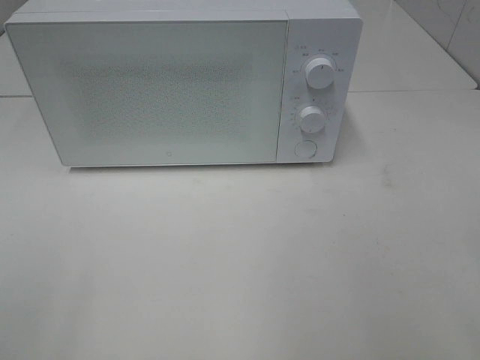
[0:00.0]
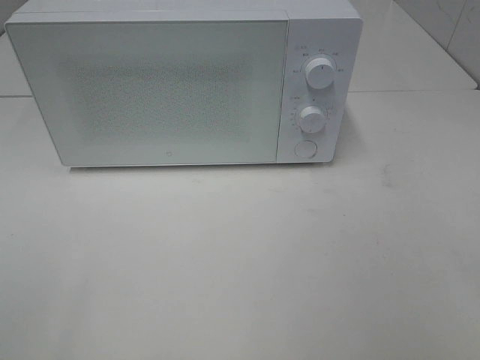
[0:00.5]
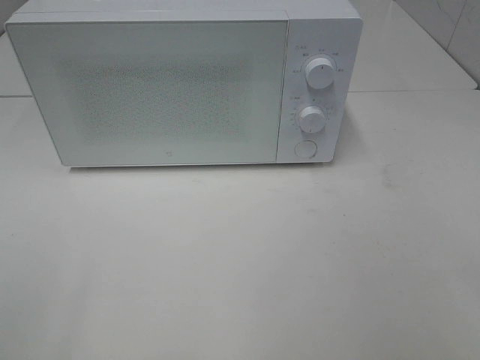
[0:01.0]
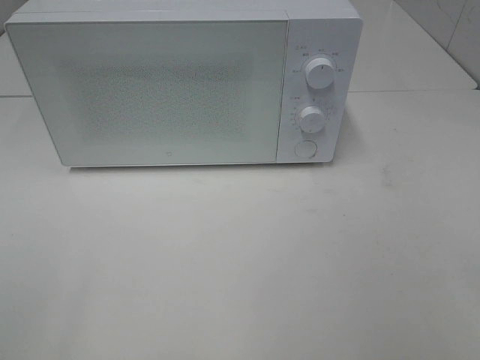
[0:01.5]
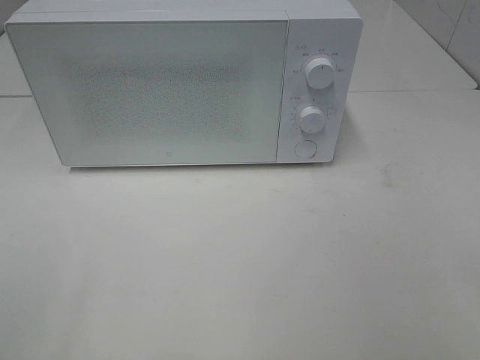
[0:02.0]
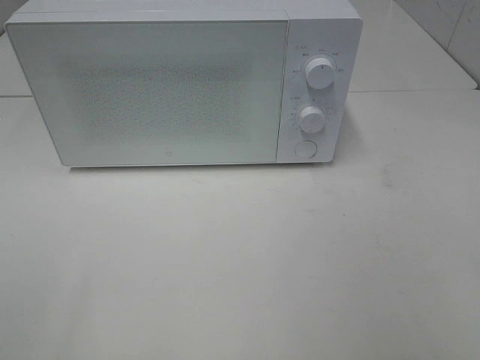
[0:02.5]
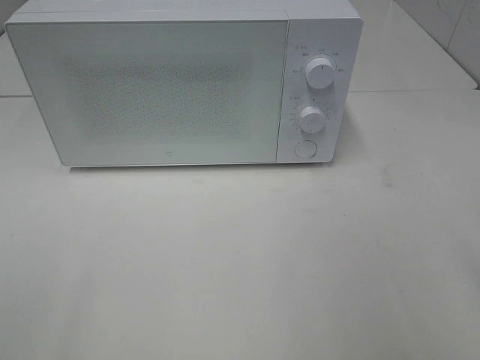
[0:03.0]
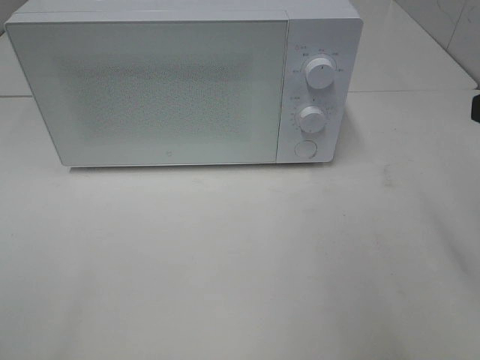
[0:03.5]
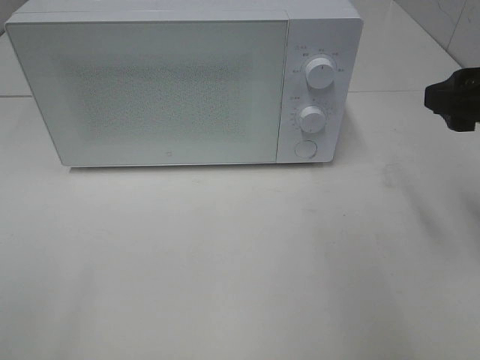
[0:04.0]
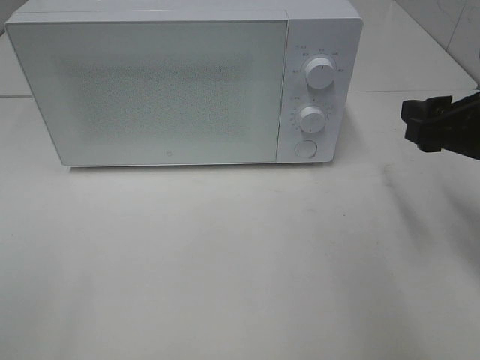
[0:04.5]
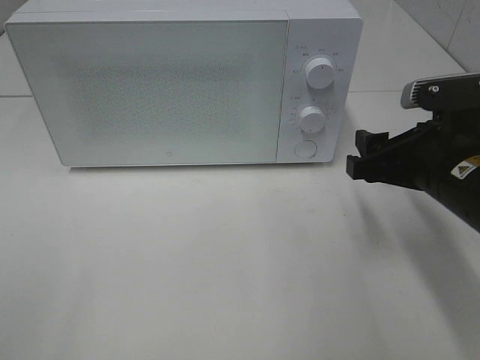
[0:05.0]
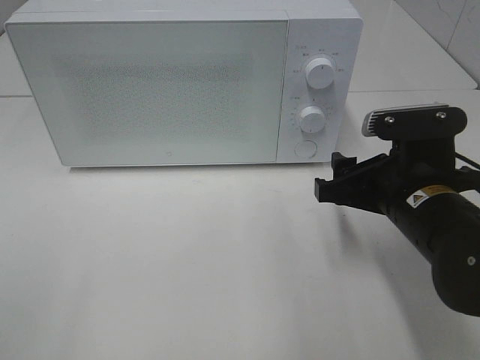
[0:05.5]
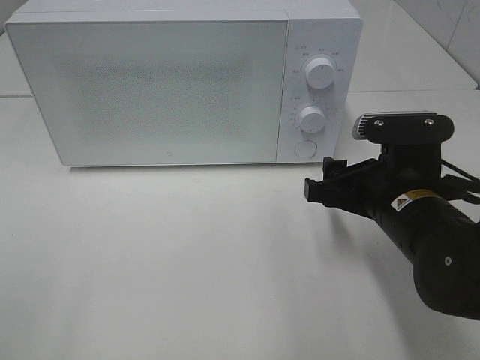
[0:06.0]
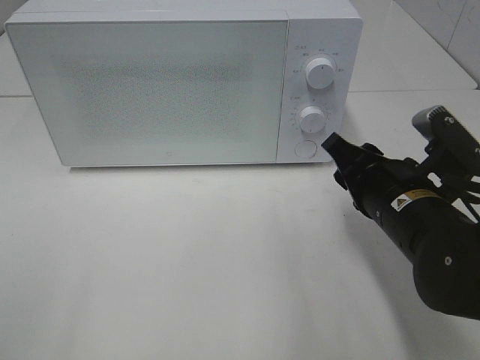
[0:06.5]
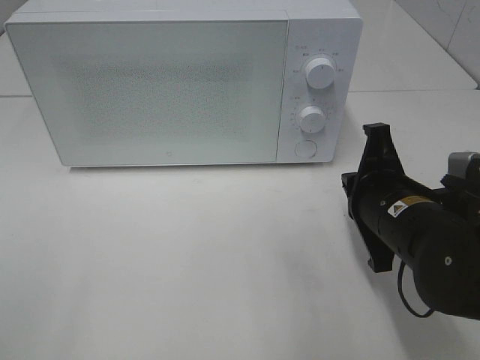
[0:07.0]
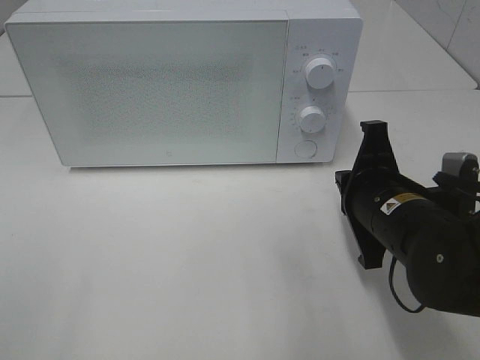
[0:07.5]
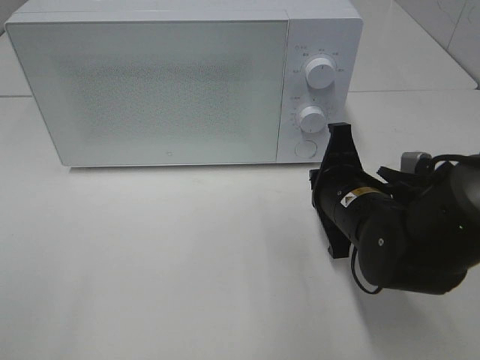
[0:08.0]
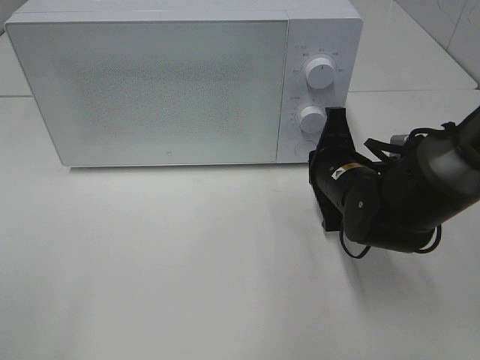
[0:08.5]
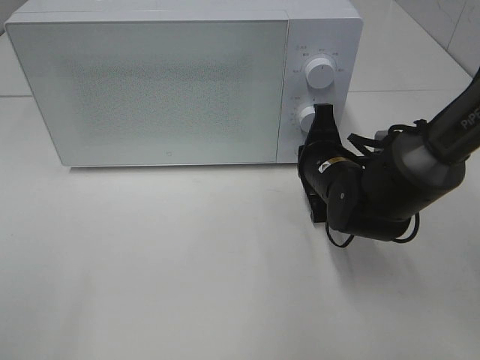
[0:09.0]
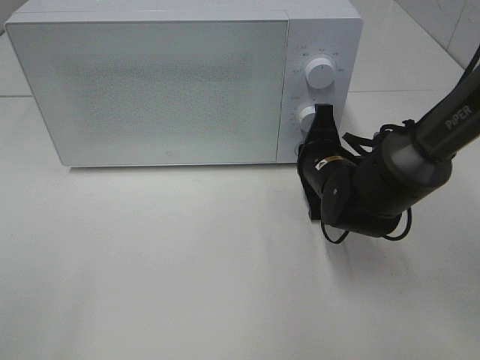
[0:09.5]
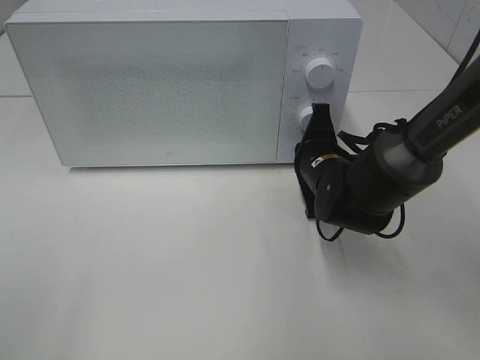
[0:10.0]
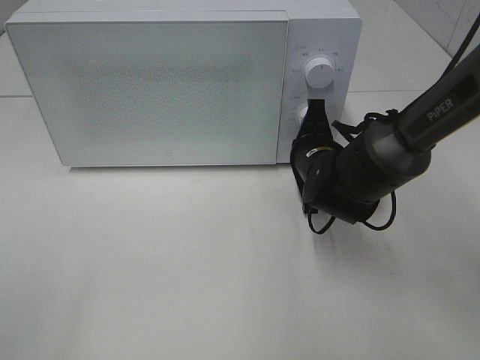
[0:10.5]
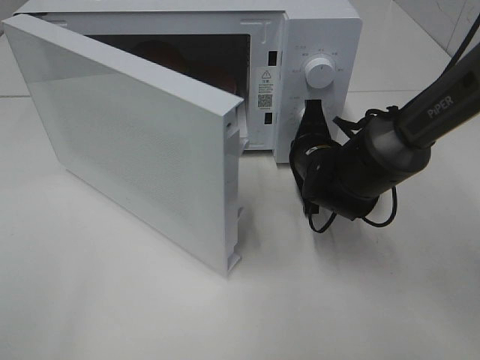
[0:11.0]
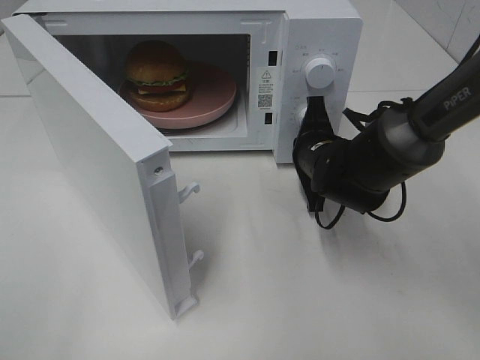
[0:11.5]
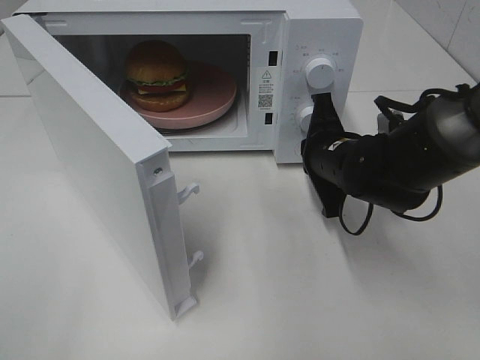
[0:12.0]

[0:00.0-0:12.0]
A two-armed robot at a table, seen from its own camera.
Task of the whole recording: Heat the burger.
Step, 0:00.0 to 0:11.5: Right hand: press the switch.
0:02.0 to 0:04.0: The right gripper travels forward by approximately 20 cm.
0:04.0 to 0:06.0: The right gripper moves downward and to the left, some 15 cm.
0:06.0 to 0:08.0: The right gripper moves some 5 cm, and closes.
0:08.0 to 0:10.0: The right gripper travels forward by about 10 cm.

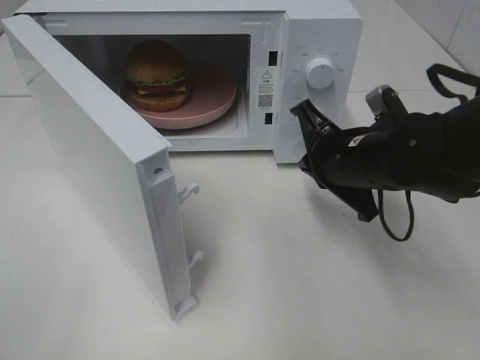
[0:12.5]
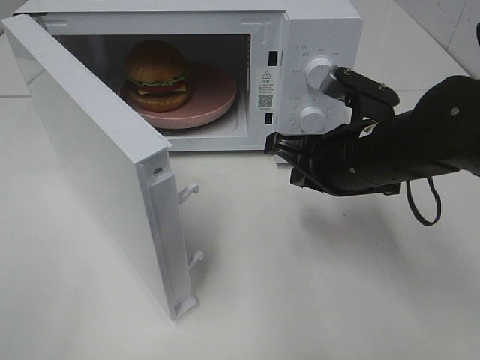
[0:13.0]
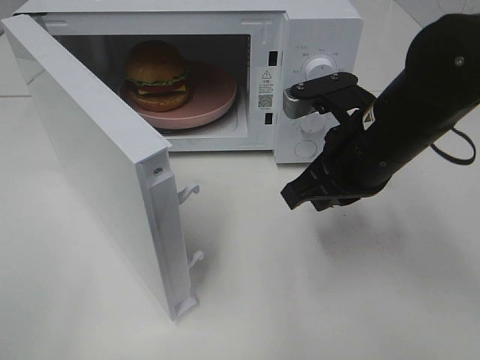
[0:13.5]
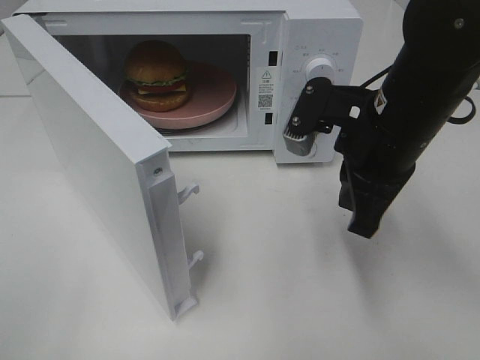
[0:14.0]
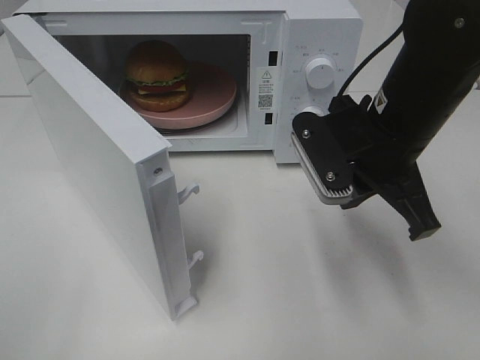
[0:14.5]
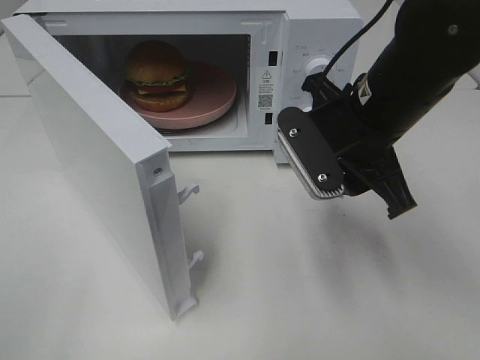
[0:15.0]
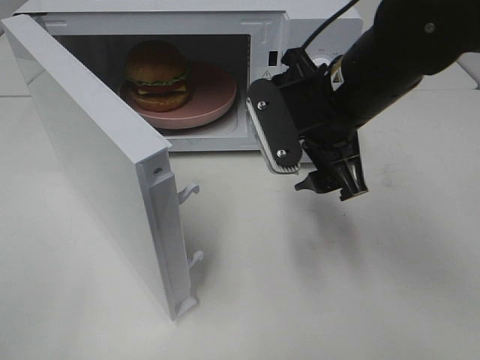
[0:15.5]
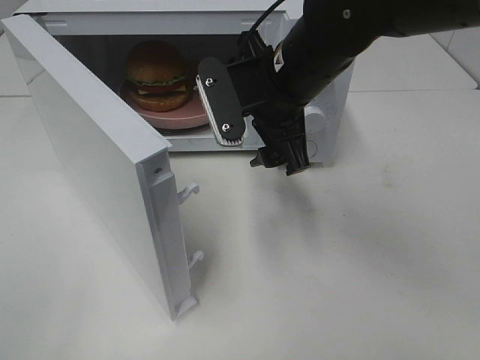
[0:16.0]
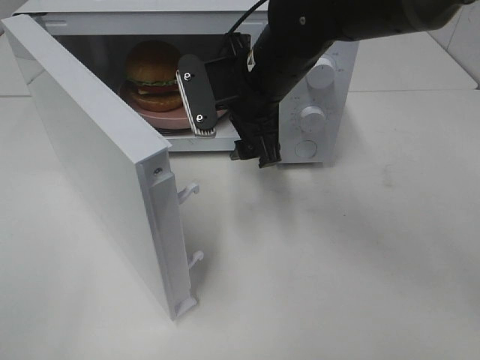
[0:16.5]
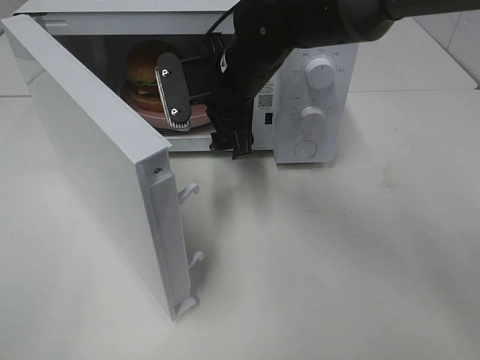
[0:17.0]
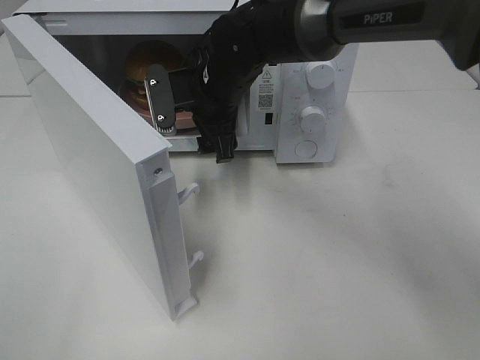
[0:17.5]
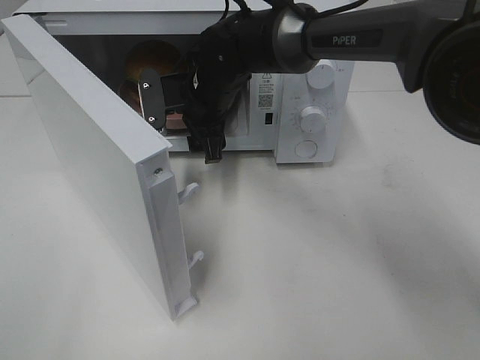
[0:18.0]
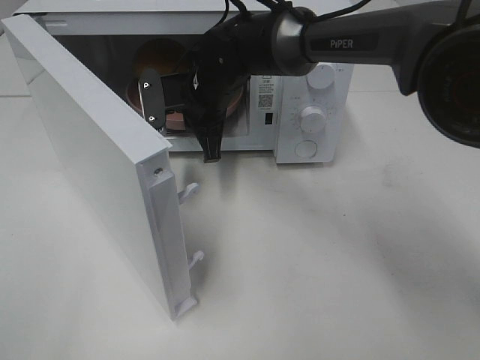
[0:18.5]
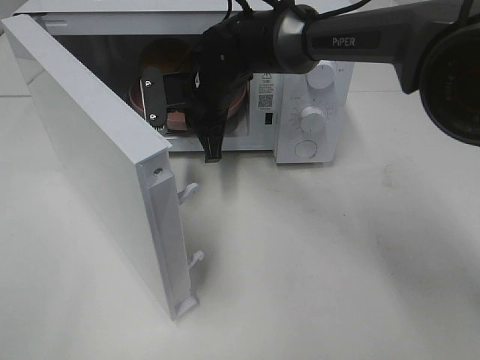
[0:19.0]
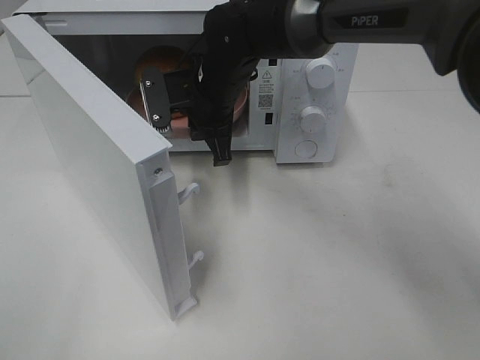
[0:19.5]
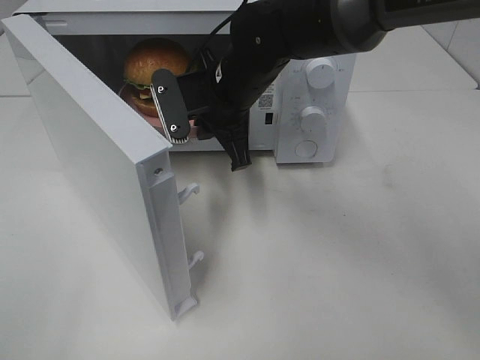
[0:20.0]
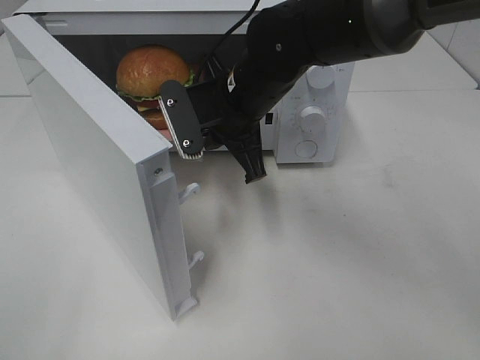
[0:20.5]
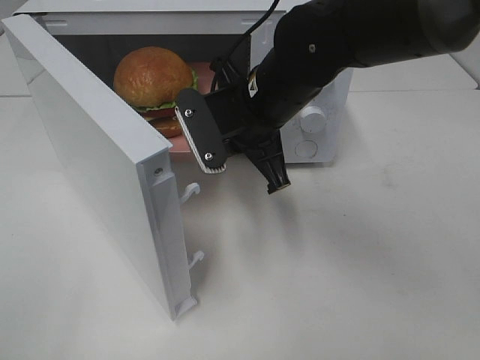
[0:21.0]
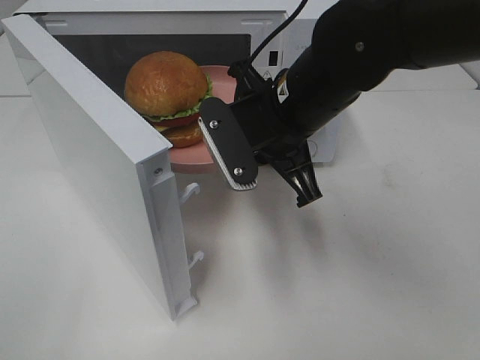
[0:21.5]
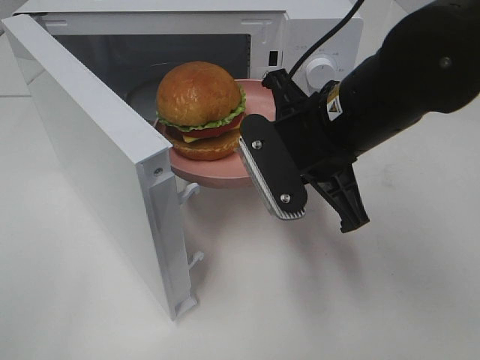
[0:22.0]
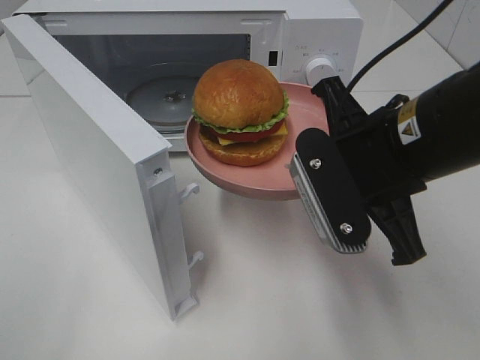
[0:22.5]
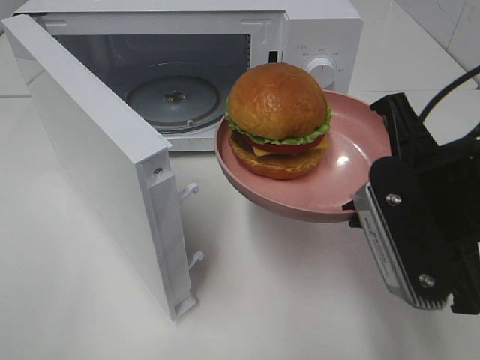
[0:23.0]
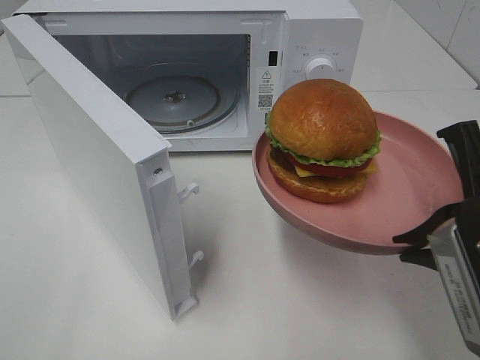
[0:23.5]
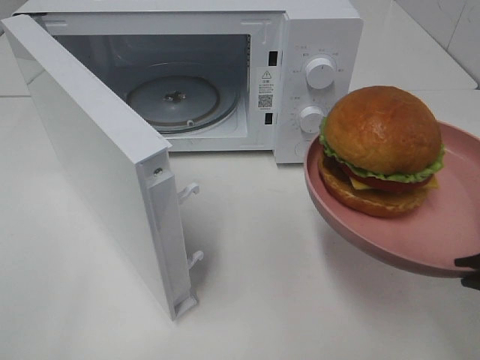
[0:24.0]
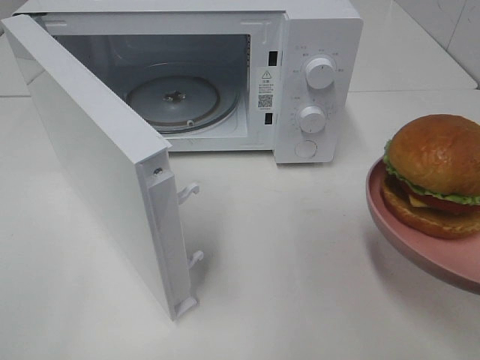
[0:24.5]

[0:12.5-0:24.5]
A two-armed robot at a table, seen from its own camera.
Task of the whole recording: Heat the burger.
Step, 0:12.5 to 0:18.5: Right hand: grab the plate with the hamburger.
0:12.5 to 0:14.5: The right gripper travels upward by approximately 5 cm.
0:14.5 to 0:16.5: The right gripper is displaced to the left and forward by about 15 cm, and opens up.
0:16.5 to 0:18.5: The right gripper is displaced forward, downward and to the left by approximately 10 cm, and closes its fingers.
0:18.5 to 0:20.5: The right gripper moves backward, approximately 10 cm.
0:20.5 to 0:22.5: The right gripper goes some 20 cm backward and to the right.
0:22.5 to 0:24.5: The right gripper is displaced backward and to the right by roughly 20 cm.

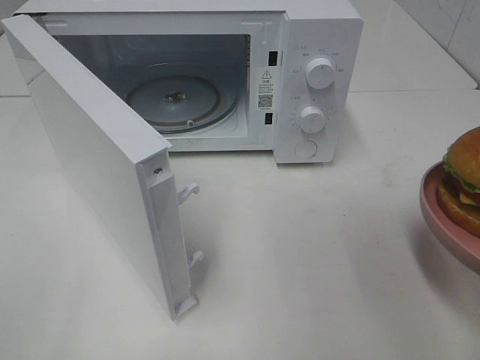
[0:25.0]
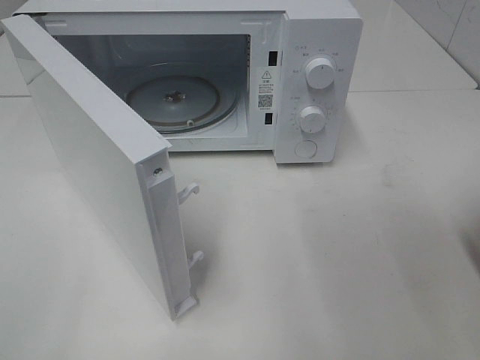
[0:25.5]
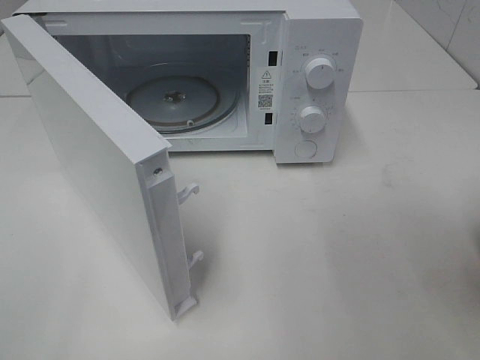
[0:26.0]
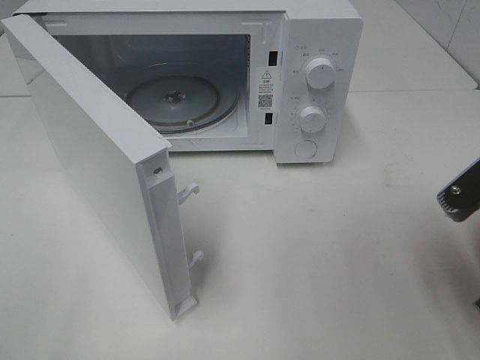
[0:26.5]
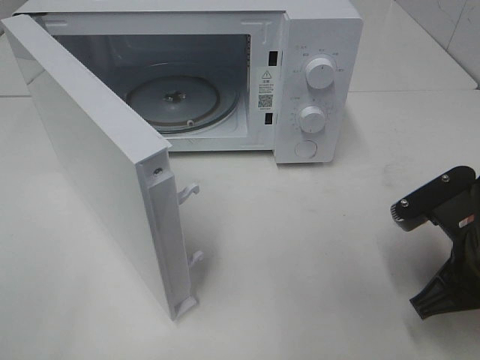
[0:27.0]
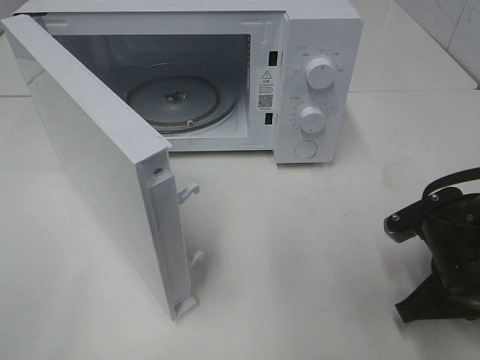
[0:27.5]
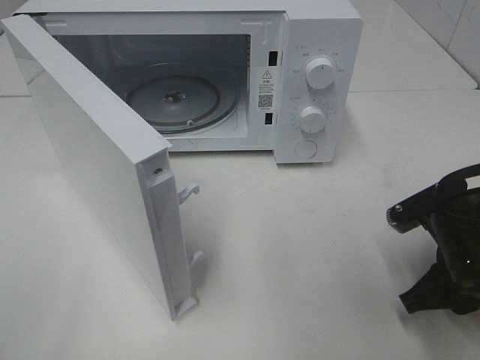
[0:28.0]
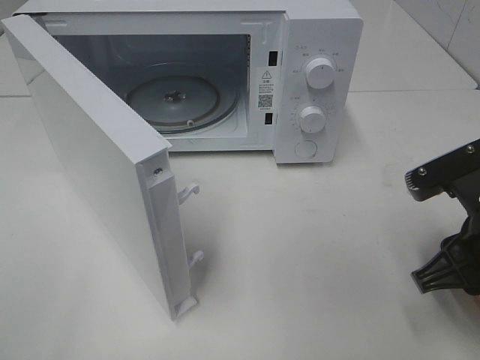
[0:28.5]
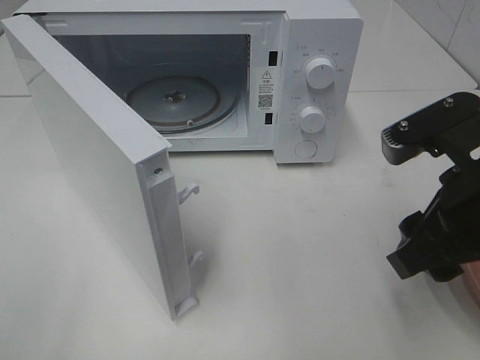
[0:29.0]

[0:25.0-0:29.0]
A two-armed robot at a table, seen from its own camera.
Task of the whole recording: Heat the burger.
Step, 0:25.0 to 0:27.5: Right hand: place the plate on the table.
0:25.0 to 0:27.0: The right gripper heads forward, downward and to the left, covering about 15 cm.
0:27.0 to 0:29.0: The right gripper heads upward, covering some 10 cm, and opens.
